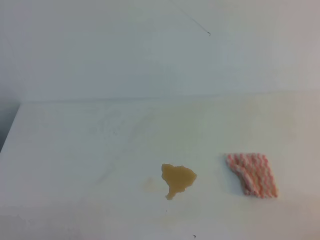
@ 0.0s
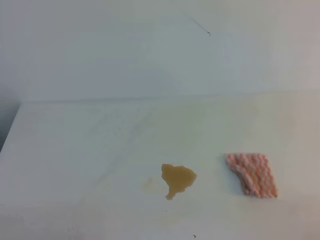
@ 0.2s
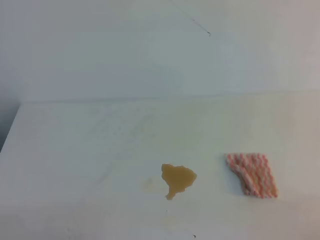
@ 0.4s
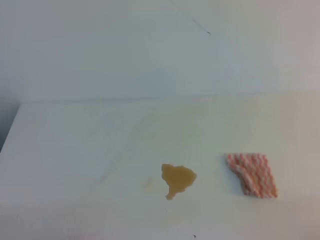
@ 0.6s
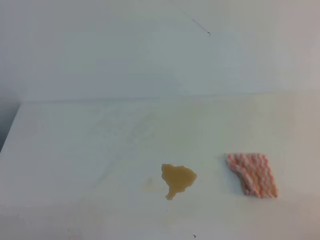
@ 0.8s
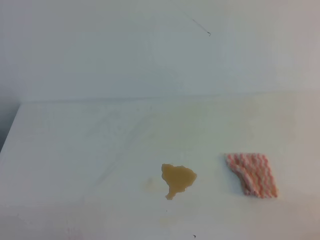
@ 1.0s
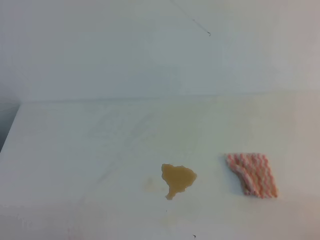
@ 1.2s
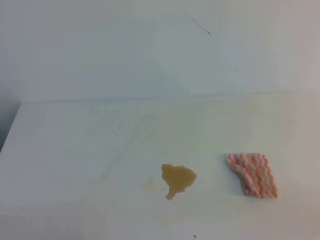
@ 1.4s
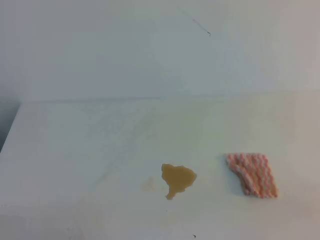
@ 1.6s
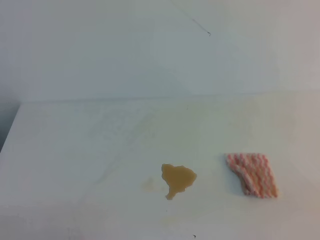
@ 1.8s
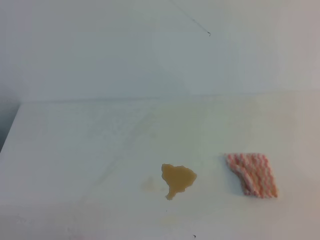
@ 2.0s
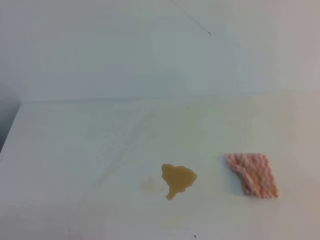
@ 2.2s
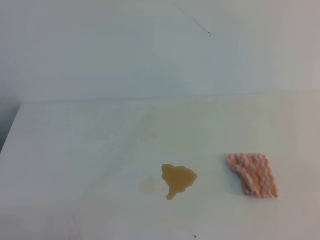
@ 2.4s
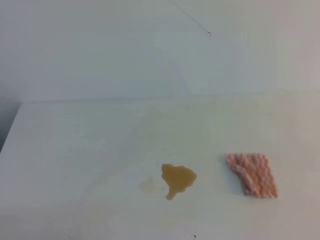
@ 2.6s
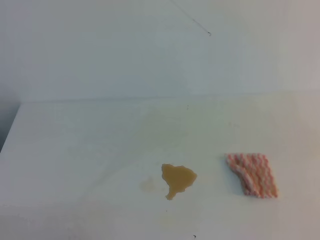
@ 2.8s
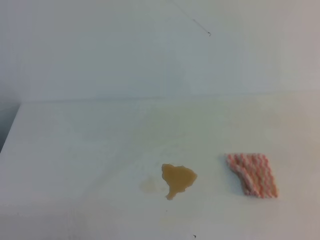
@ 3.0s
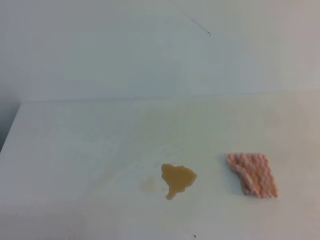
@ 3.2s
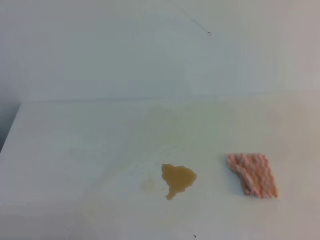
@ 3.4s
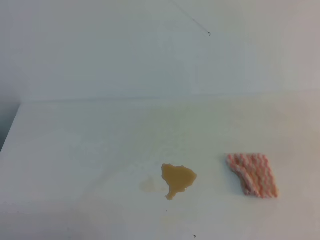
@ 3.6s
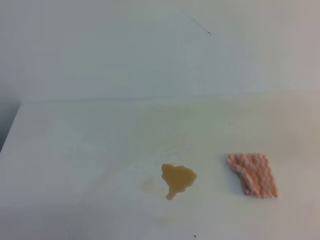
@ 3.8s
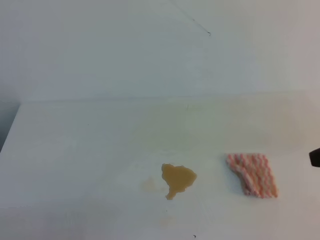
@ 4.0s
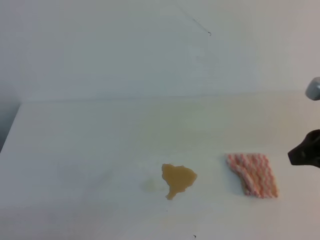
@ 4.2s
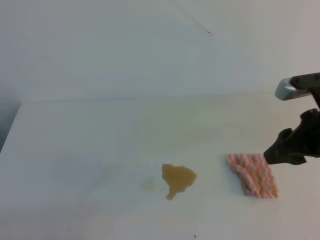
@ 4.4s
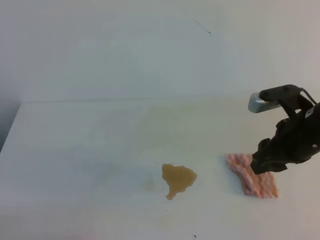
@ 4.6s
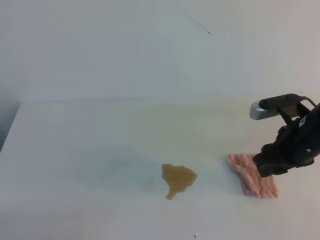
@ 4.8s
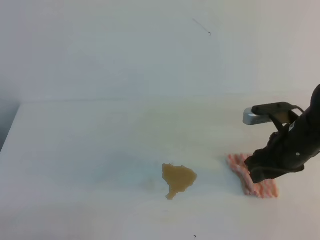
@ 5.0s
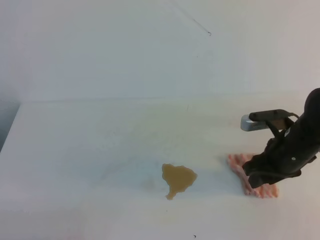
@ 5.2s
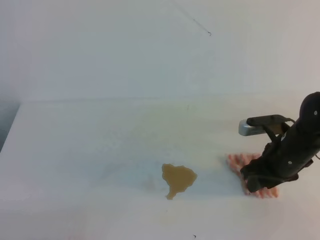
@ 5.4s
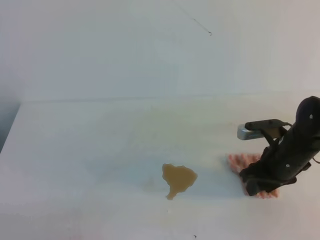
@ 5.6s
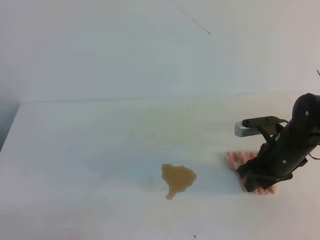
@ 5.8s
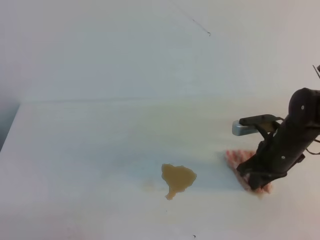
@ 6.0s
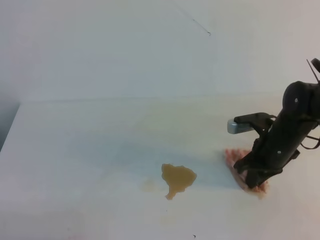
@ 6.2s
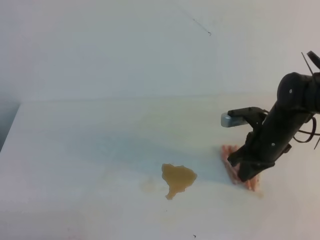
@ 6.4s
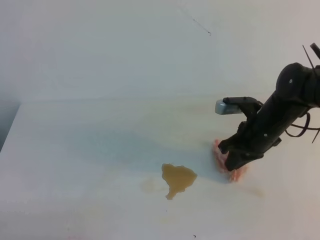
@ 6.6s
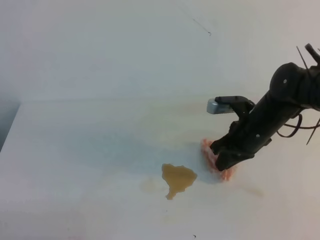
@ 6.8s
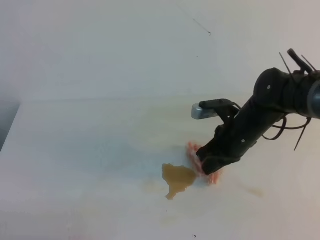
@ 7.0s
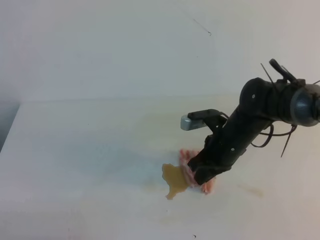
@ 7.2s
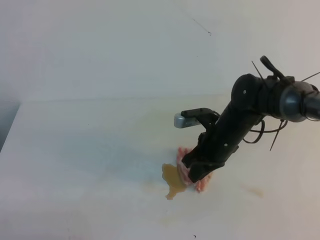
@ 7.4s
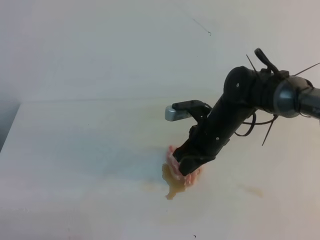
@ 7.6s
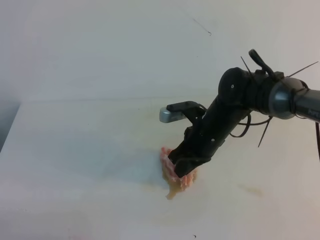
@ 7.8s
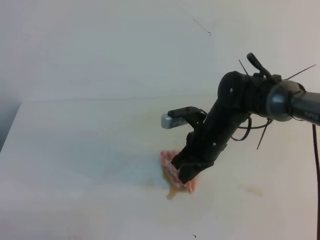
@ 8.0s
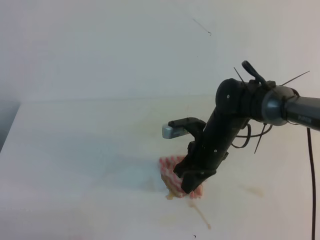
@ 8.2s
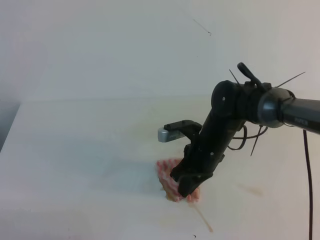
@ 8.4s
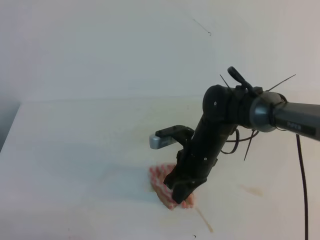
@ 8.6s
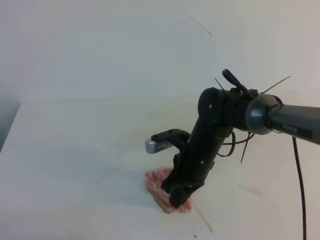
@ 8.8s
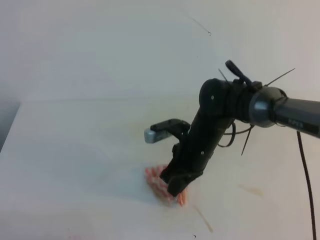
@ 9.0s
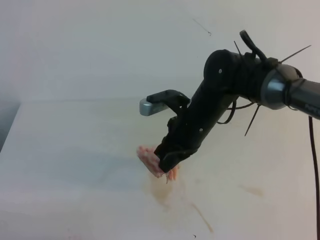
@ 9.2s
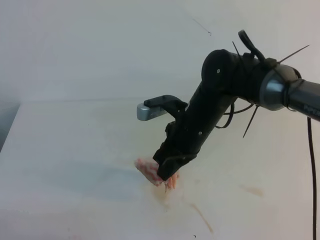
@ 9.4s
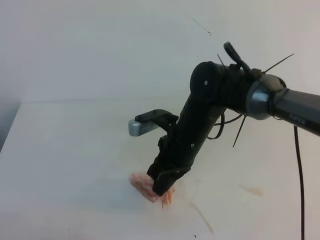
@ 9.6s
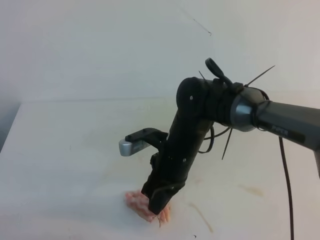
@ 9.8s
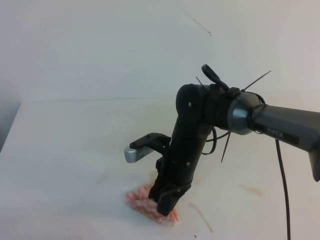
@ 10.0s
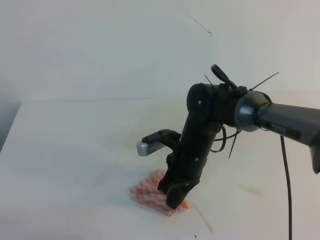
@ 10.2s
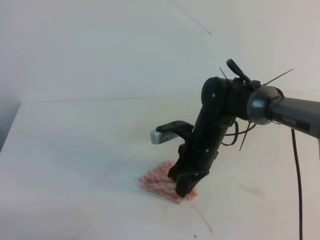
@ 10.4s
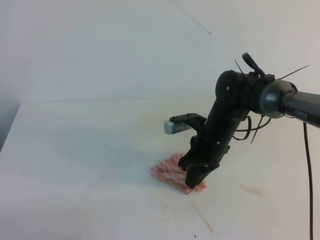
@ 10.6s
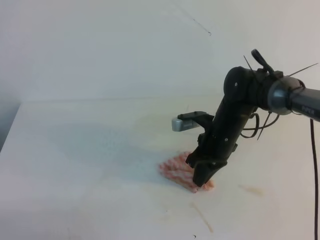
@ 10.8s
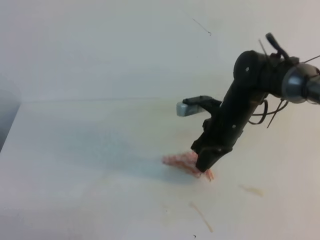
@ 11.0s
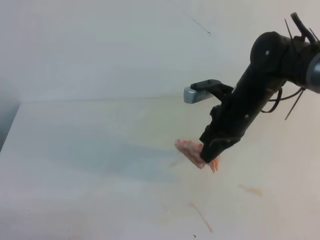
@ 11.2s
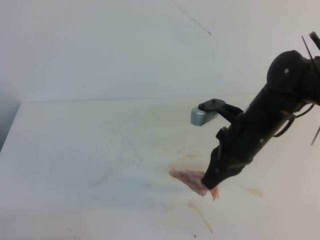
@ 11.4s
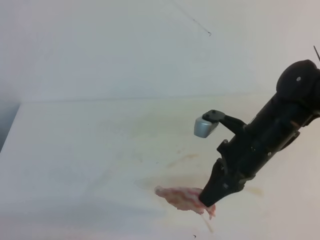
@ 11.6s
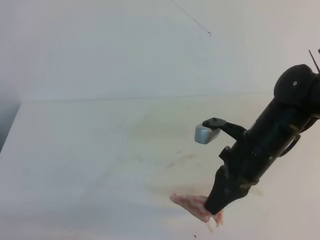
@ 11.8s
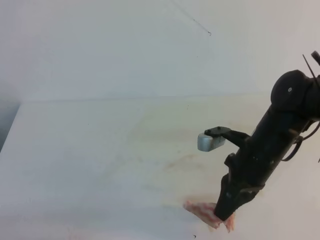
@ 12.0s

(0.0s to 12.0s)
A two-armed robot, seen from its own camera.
3.0s - 4.4s: The right gripper shifts about 25 cm forward, to the left and downward, and opens up.
4.4s - 6.0s: The right gripper travels downward and forward by some 15 cm, and closes its fingers.
6.0s - 7.6s: The right gripper shifts some 10 cm to the left, and closes its fingers.
7.6s - 9.0s: The grippers make only small movements.
9.0s - 10.4s: The grippers stay close to where they were, moving slightly.
10.4s - 12.0s: The right gripper shifts some 10 cm to the right and backward.

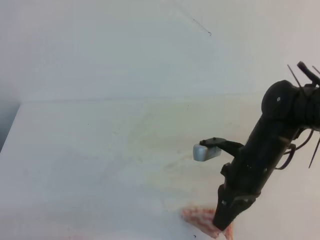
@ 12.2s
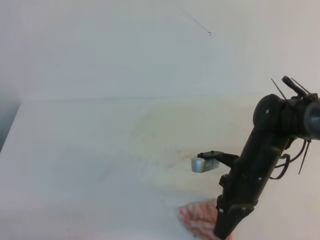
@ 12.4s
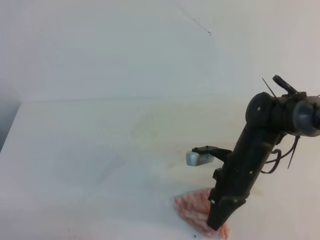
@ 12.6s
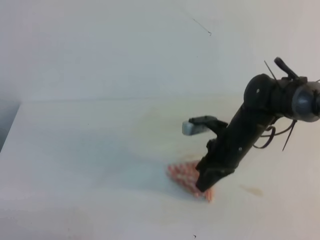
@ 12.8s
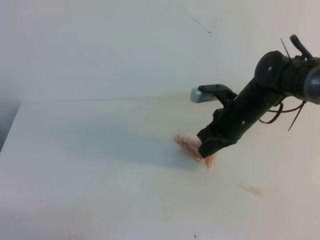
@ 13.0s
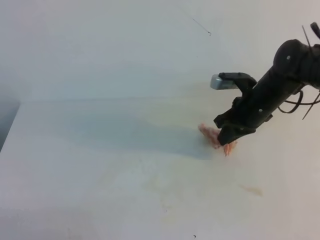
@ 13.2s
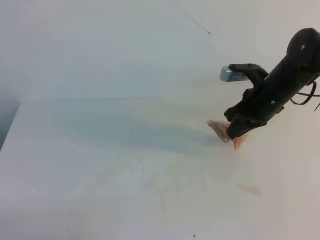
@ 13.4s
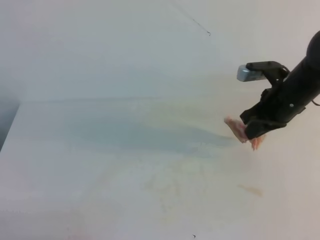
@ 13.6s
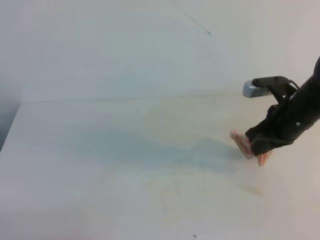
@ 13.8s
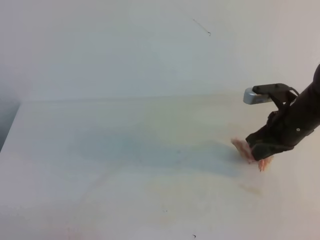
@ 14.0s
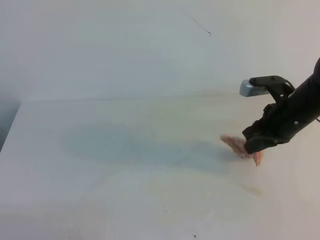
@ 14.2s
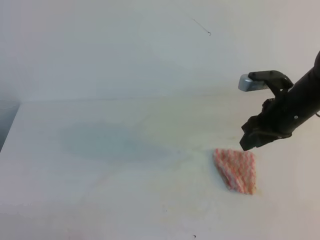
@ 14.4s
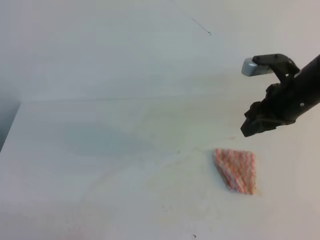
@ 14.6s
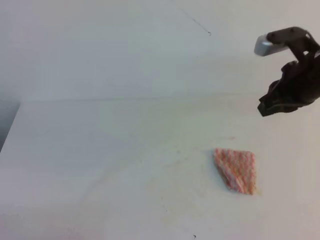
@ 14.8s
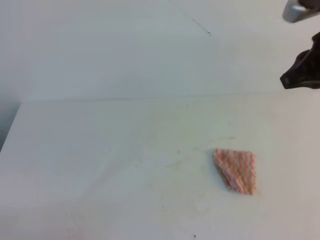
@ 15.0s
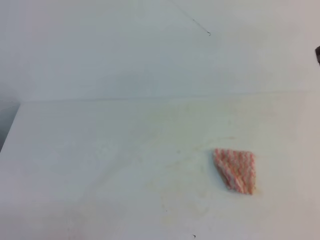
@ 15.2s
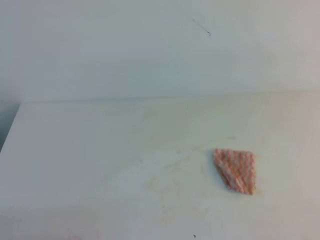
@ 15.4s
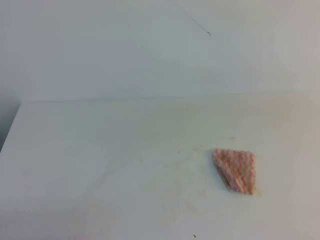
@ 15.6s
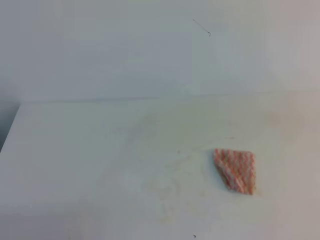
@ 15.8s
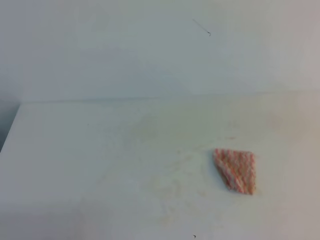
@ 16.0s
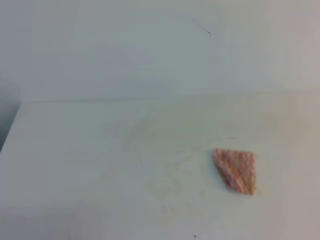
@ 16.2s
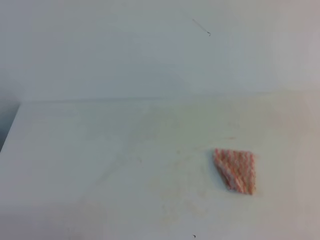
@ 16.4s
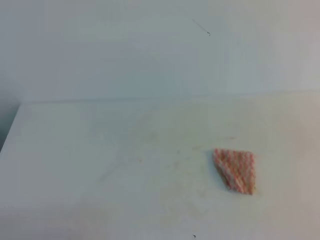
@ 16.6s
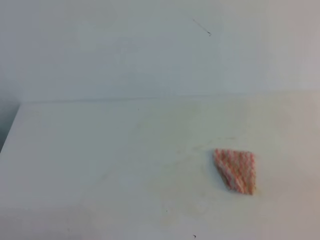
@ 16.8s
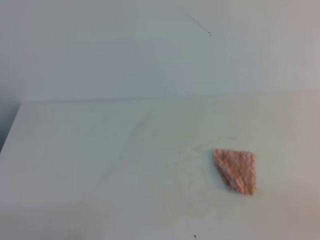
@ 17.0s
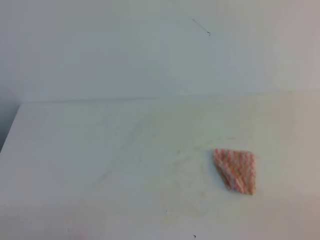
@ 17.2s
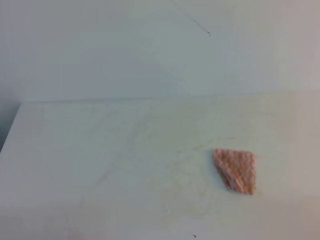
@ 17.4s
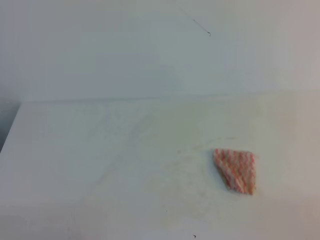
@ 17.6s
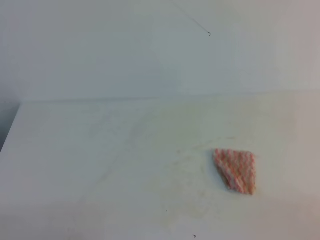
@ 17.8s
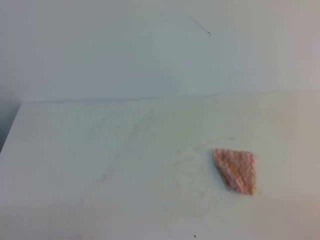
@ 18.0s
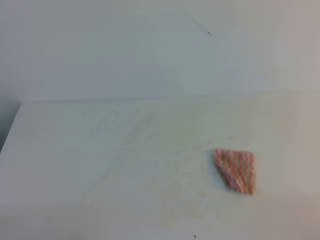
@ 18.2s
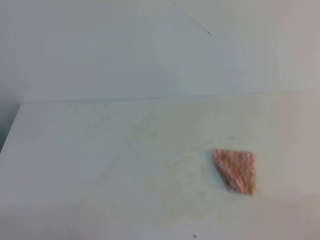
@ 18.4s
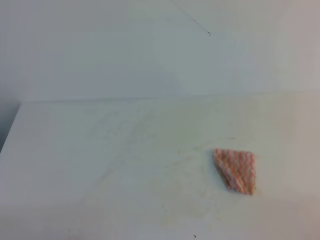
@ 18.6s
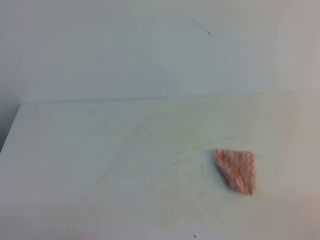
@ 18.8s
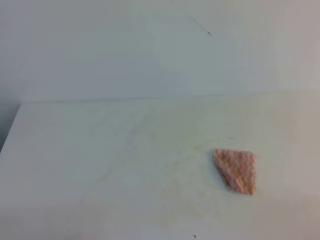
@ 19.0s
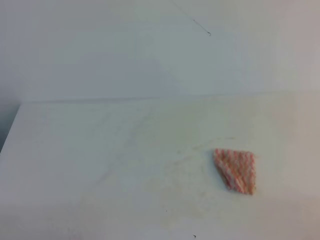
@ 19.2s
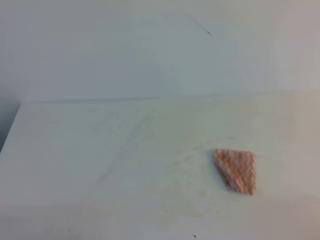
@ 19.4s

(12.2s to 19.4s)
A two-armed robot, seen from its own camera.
12.2s - 13.6s: The right gripper heads forward and to the right, covering about 10 cm.
13.6s - 15.0s: The right gripper shifts roughly 15 cm upward and backward, and opens and closes again.
15.0s - 16.6s: The right gripper goes roughly 25 cm backward.
18.0s - 19.4s: Both grippers stay about where they are.

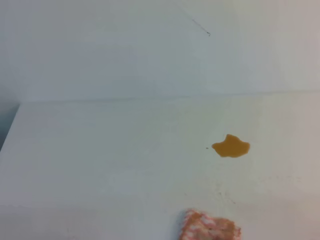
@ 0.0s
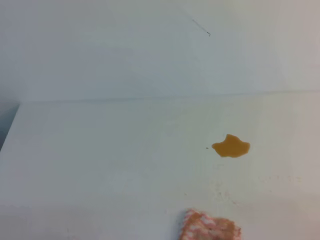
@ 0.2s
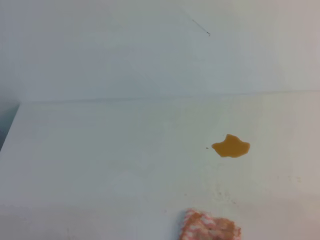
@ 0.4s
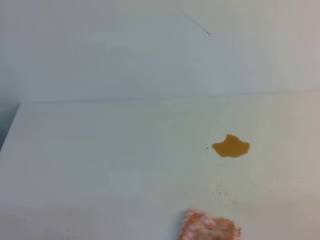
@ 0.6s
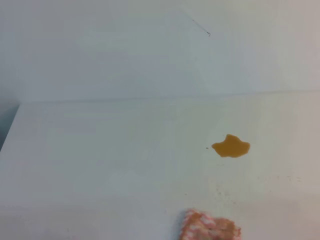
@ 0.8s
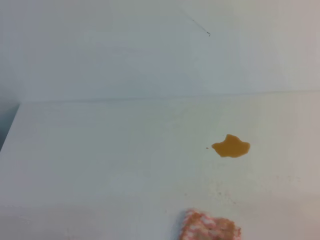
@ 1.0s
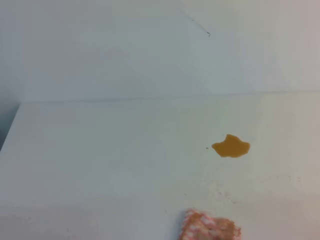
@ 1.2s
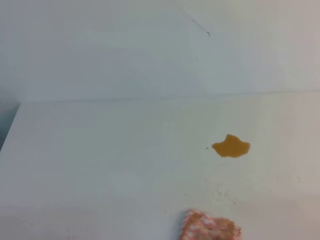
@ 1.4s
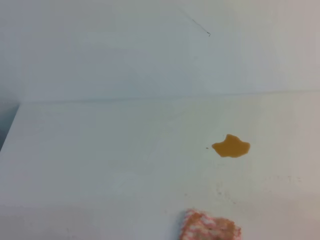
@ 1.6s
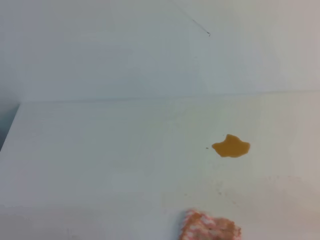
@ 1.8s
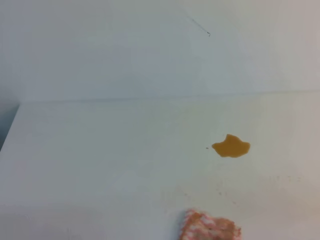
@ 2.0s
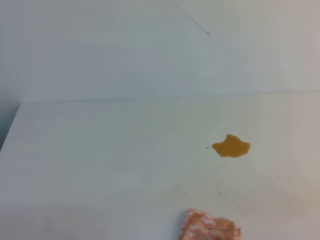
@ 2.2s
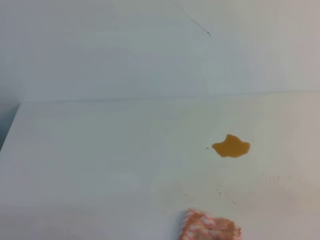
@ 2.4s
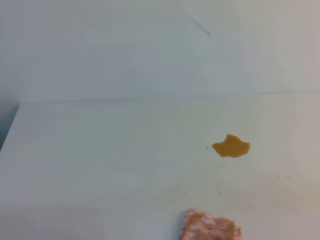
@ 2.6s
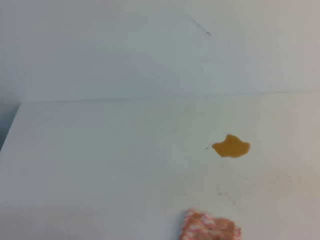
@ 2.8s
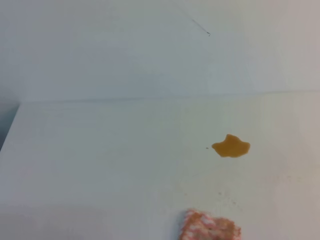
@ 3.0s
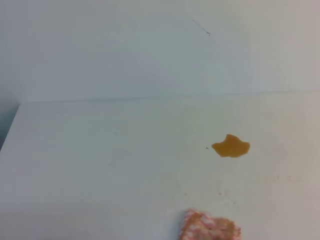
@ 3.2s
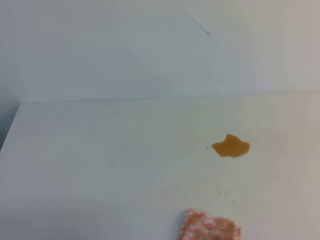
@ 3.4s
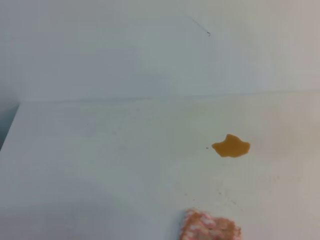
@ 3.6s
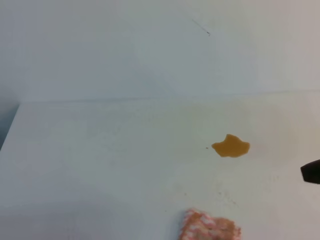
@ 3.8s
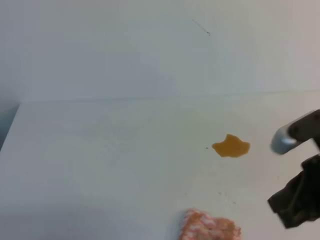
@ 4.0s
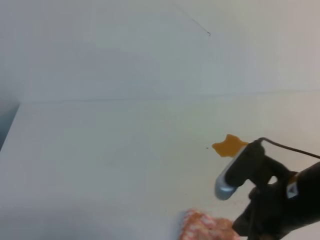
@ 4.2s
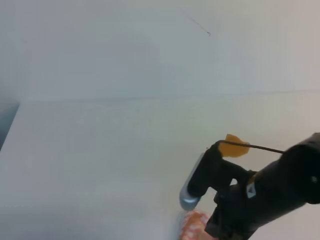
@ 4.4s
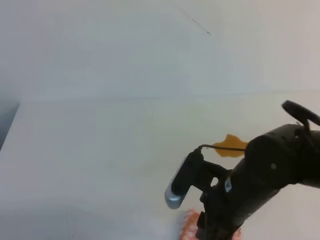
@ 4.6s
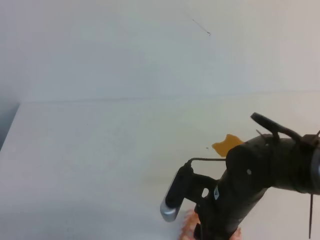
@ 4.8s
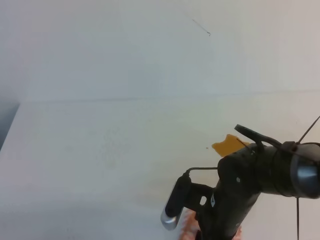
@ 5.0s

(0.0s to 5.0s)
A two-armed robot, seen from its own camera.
0.0s - 1.6s: Neither gripper changes place.
3.4s - 5.0s: The right gripper goes roughly 30 cm to the left, downward and forward, and opens its fingers.
